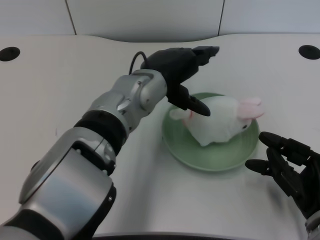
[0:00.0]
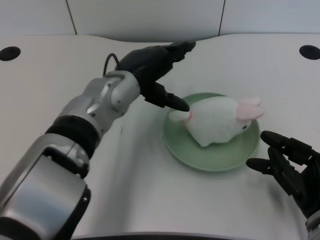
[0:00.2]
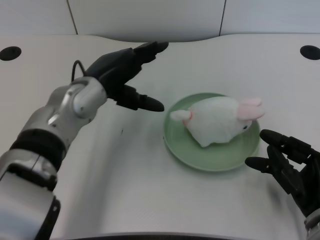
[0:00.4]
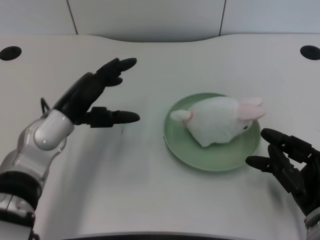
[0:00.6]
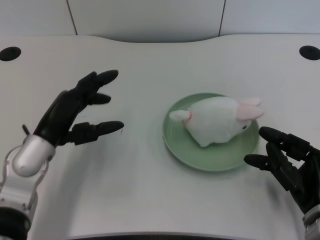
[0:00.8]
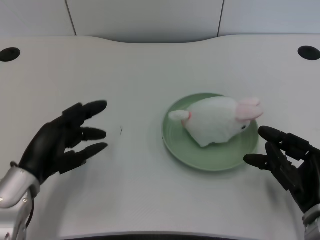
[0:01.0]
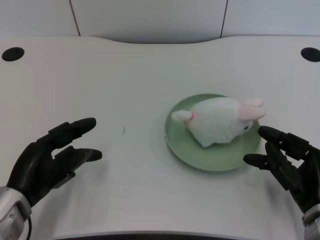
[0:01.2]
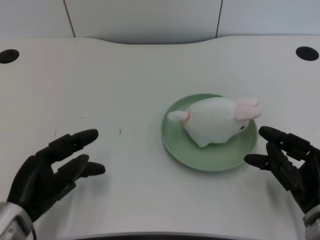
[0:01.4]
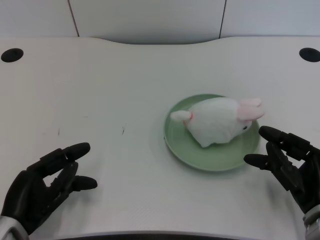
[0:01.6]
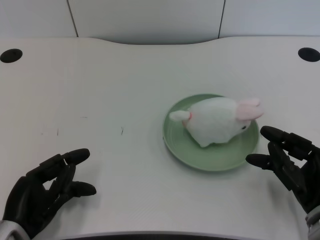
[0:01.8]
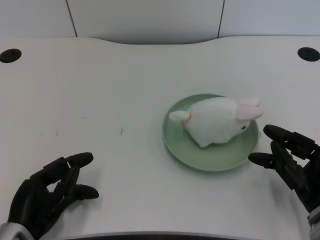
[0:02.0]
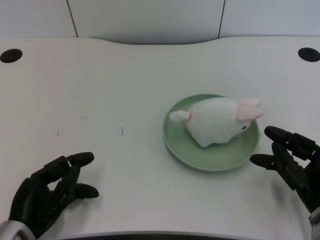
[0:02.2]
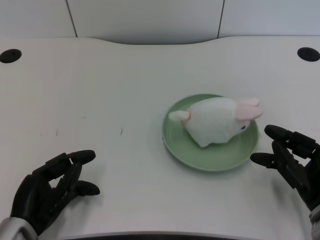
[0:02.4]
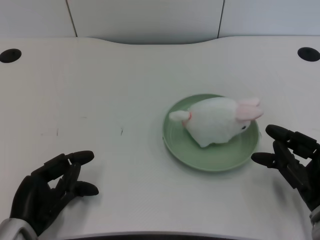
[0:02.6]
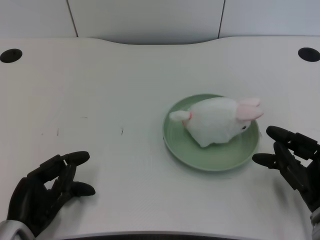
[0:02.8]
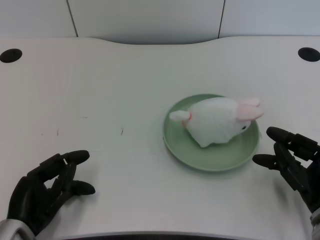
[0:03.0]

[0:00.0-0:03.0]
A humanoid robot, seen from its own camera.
Task of the whole recording: pick up the rabbit doll from the table and place it on the plate.
0:00.0 to 0:01.6: The left hand moves to the left, backward and downward, about 30 cm.
0:01.6 to 0:03.0: The hands stay close to where they were, moving slightly.

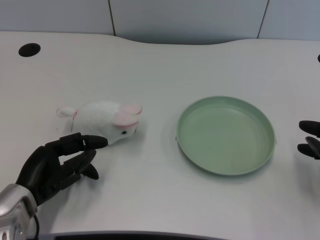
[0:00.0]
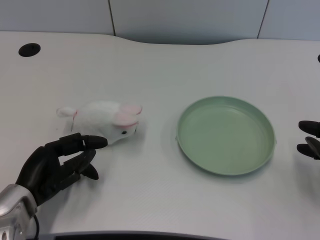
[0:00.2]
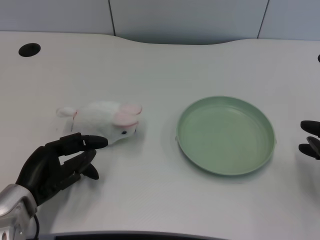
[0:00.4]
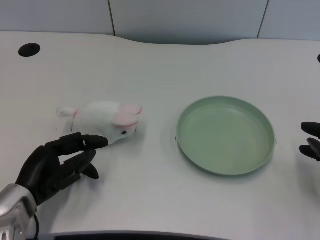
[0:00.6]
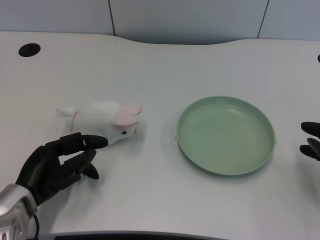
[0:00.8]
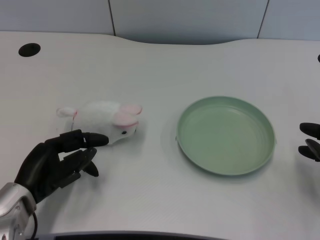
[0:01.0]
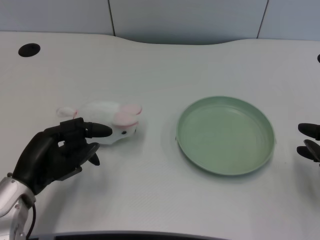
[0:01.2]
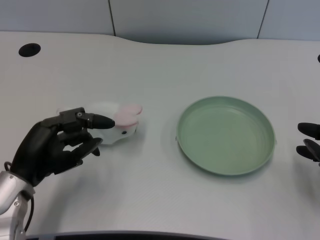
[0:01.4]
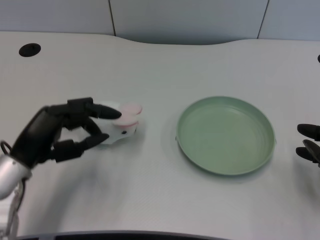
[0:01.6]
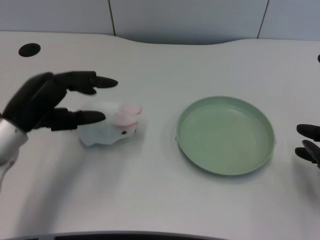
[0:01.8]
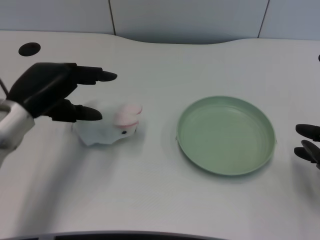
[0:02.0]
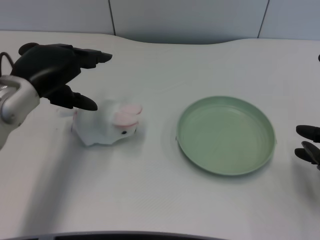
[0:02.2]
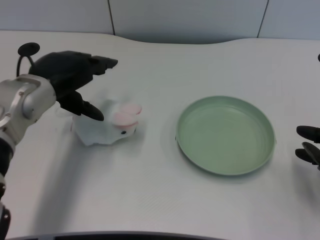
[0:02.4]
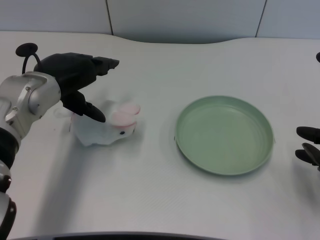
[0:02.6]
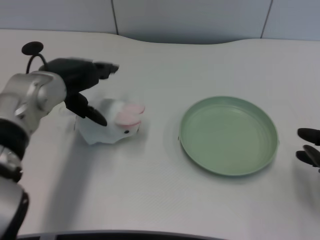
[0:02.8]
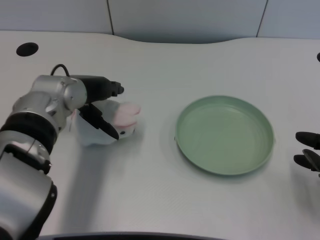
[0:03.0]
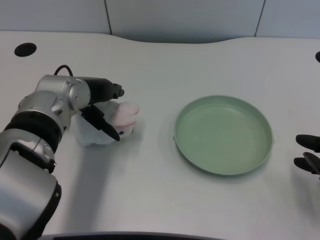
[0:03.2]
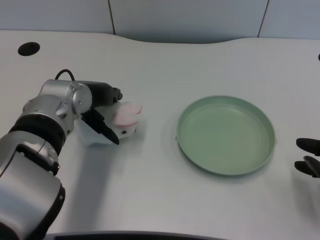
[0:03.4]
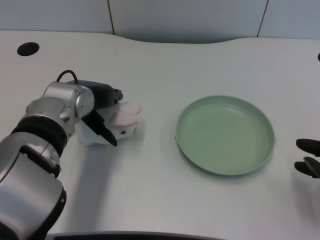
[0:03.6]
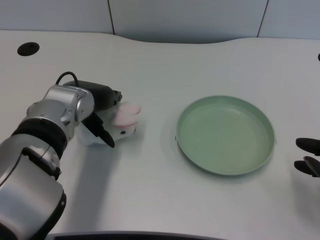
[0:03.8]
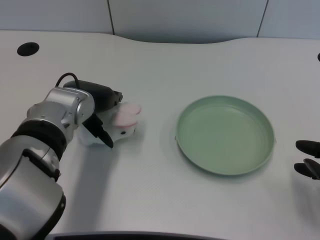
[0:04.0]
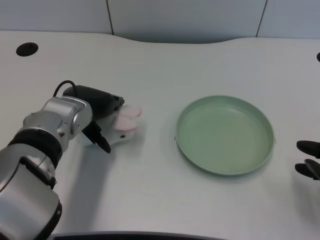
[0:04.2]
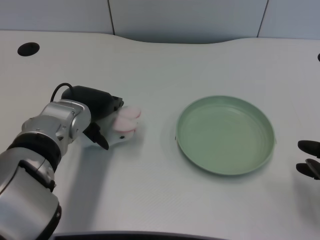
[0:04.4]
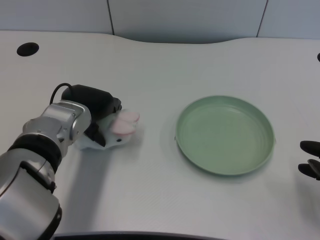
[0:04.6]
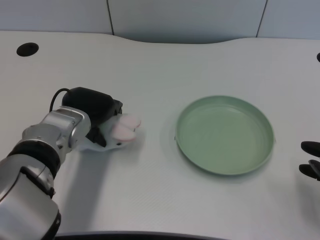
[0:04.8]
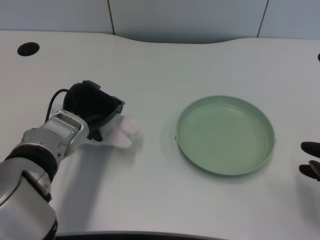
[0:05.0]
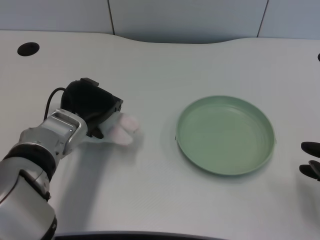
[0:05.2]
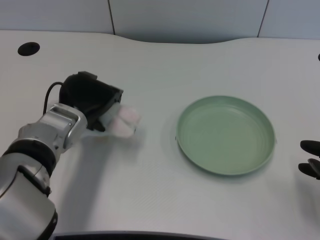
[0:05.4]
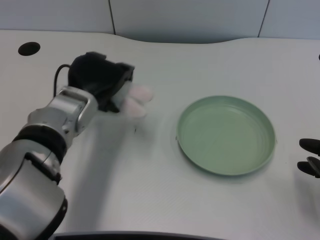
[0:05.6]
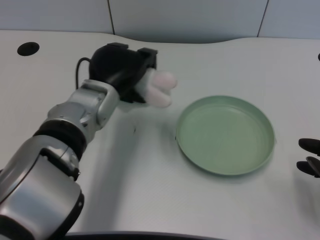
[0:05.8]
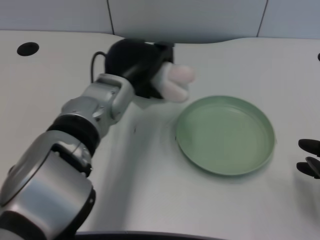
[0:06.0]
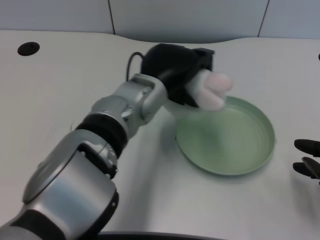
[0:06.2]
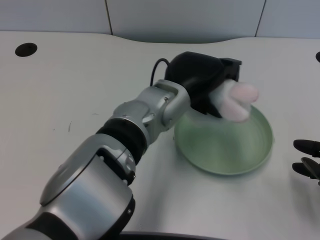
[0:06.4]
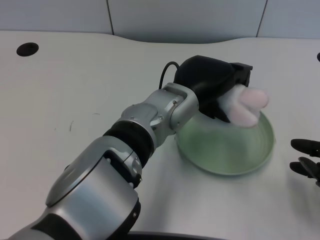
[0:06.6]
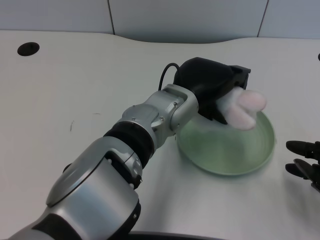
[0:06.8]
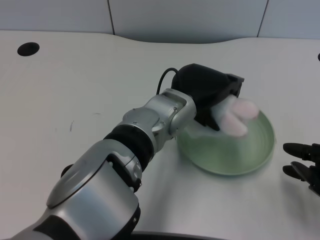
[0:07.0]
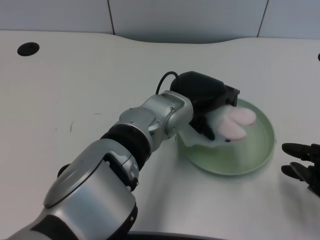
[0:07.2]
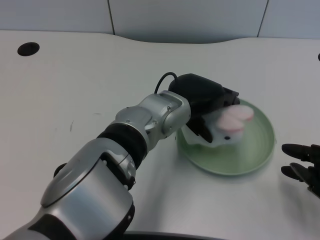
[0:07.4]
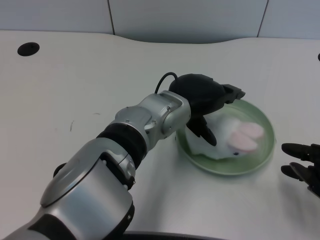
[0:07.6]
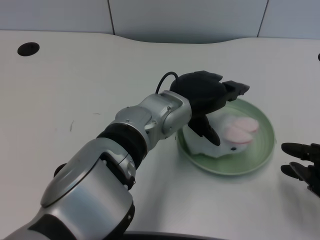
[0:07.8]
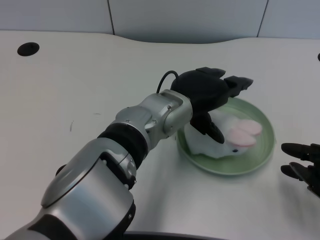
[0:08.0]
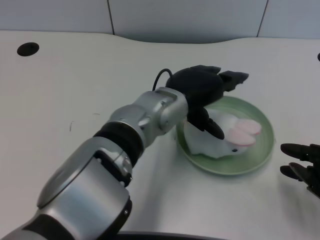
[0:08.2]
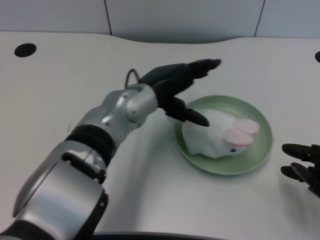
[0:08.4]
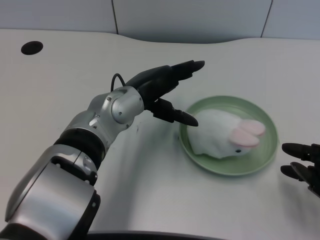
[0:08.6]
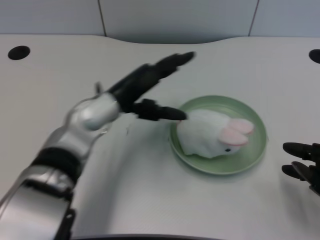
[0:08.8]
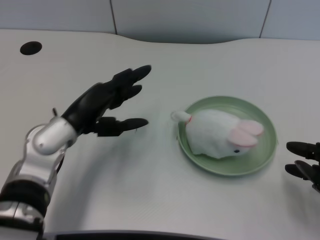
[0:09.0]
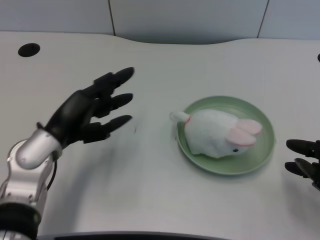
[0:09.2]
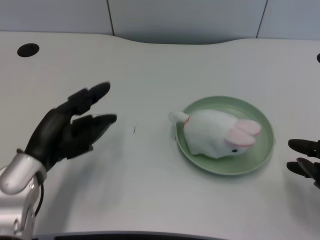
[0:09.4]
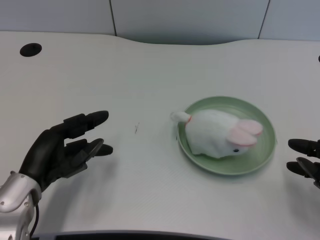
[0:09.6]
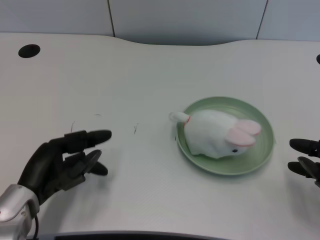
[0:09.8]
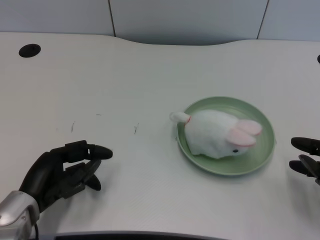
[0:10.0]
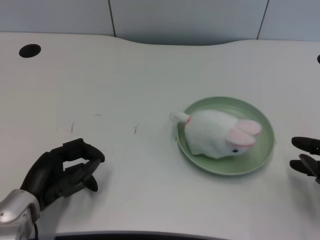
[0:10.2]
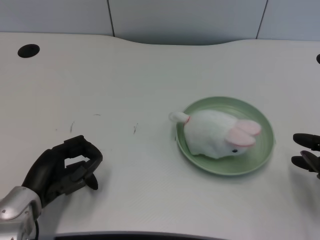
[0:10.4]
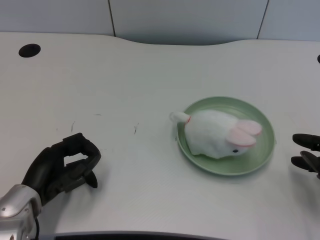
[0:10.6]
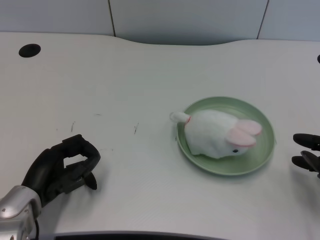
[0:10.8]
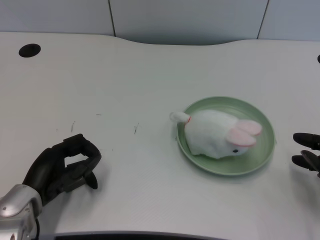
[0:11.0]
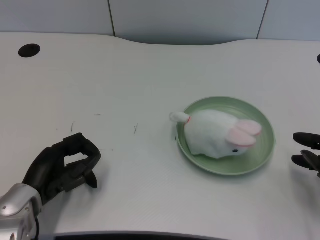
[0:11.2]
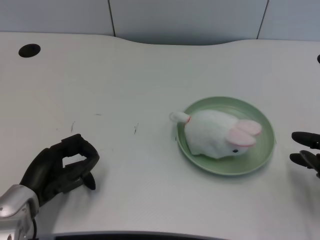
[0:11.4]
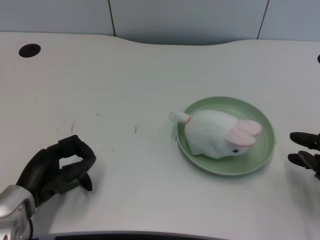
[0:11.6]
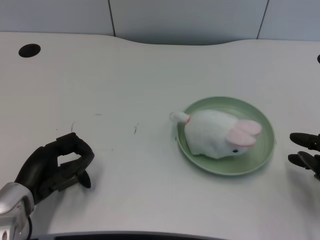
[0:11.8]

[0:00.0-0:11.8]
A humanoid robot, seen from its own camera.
Task of the whole recording: pick up the rabbit doll from the table and place it on the plate.
Step, 0:01.2 to 0:05.2: Grasp the rabbit doll with the left gripper.
Step, 0:05.4 to 0:07.6: Place the rabbit doll into the plate with the left gripper.
0:01.4 to 0:03.0: The left hand moves forward, upward and to the right, approximately 15 cm.
0:03.0 to 0:04.4: The hands make only small movements.
0:04.4 to 0:06.0: The left hand is displaced to the right by about 5 cm.
0:06.0 to 0:07.4: The left hand moves to the right, approximately 5 cm.
0:07.4 to 0:08.8: The left hand shifts about 10 cm to the left.
0:08.8 to 0:10.4: The left hand shifts approximately 15 cm to the left, downward and backward.
0:10.4 to 0:11.8: The two hands keep their place.

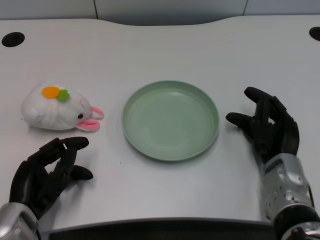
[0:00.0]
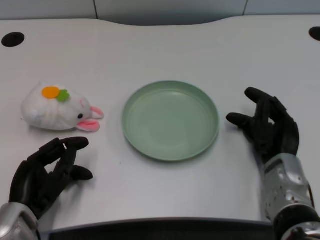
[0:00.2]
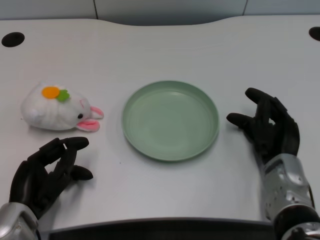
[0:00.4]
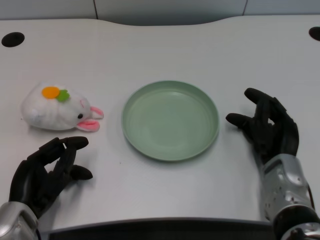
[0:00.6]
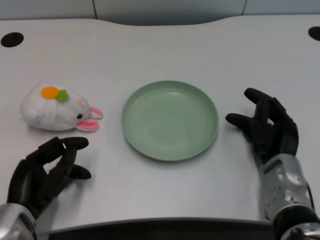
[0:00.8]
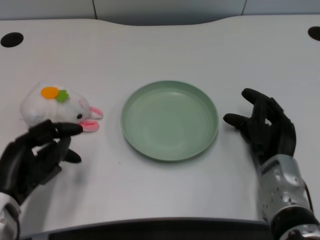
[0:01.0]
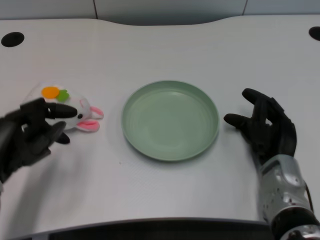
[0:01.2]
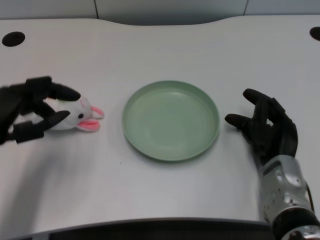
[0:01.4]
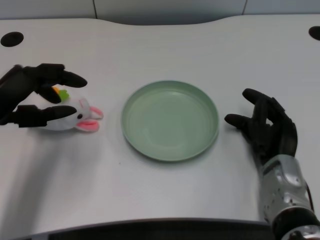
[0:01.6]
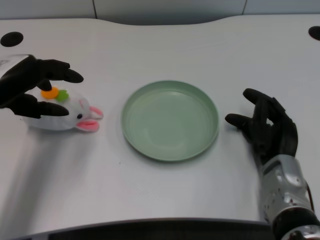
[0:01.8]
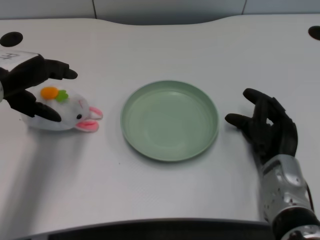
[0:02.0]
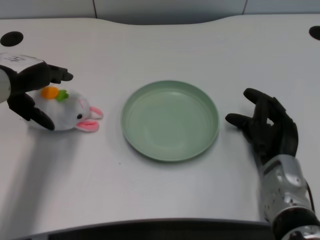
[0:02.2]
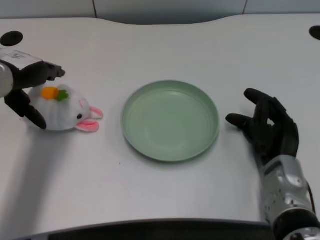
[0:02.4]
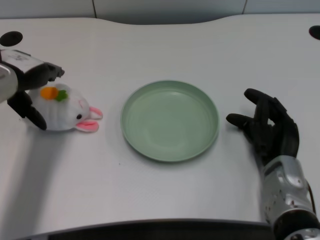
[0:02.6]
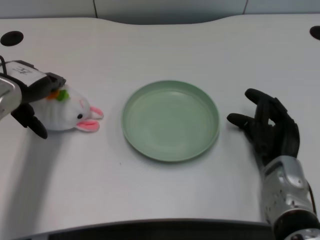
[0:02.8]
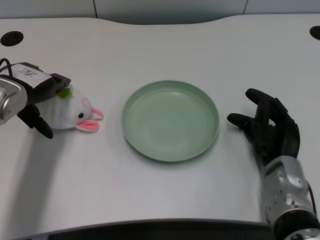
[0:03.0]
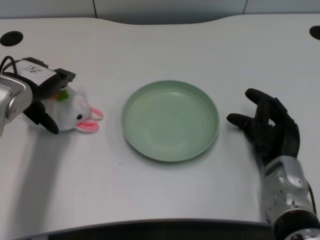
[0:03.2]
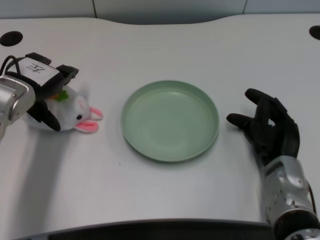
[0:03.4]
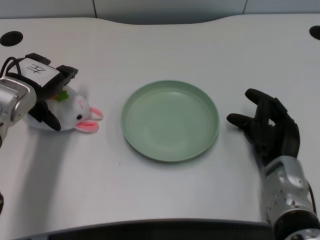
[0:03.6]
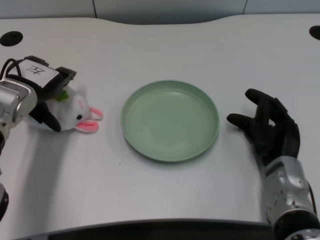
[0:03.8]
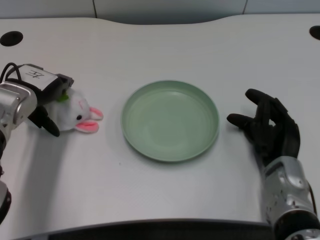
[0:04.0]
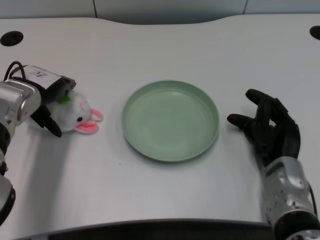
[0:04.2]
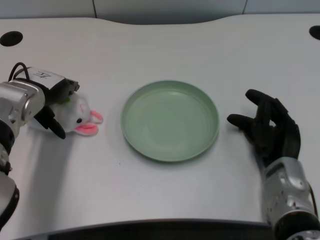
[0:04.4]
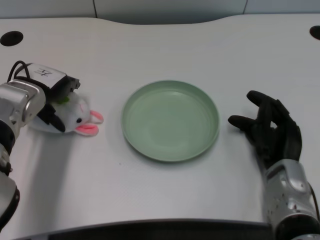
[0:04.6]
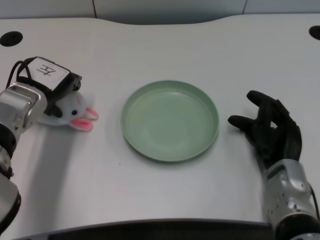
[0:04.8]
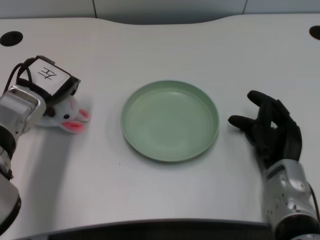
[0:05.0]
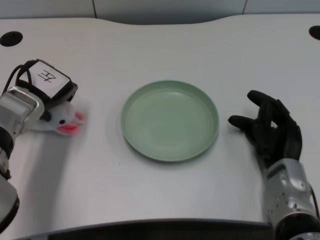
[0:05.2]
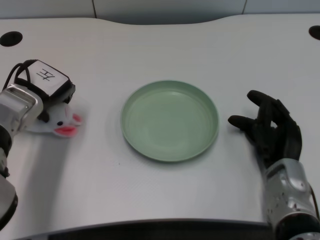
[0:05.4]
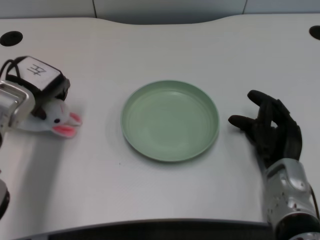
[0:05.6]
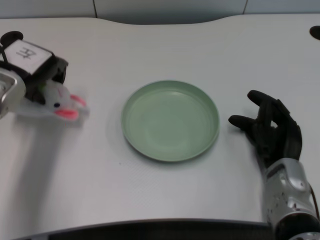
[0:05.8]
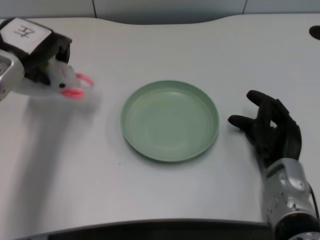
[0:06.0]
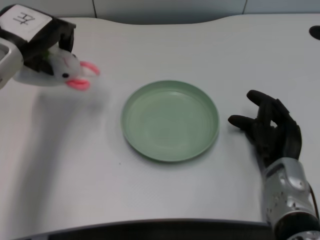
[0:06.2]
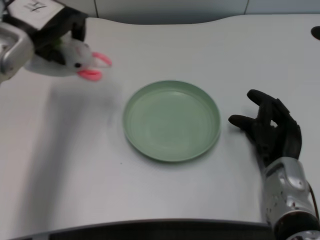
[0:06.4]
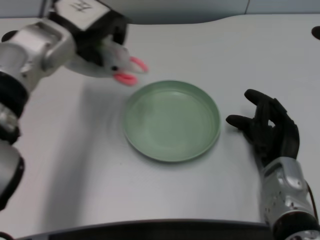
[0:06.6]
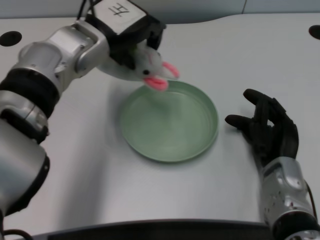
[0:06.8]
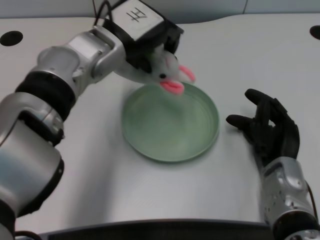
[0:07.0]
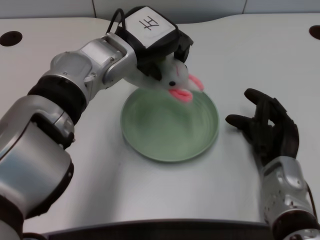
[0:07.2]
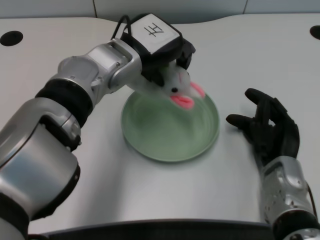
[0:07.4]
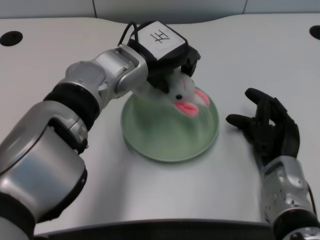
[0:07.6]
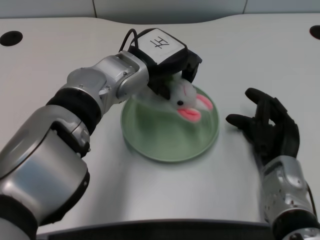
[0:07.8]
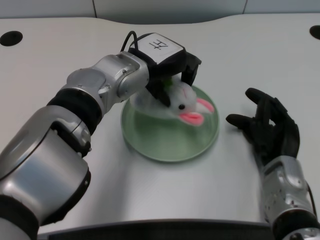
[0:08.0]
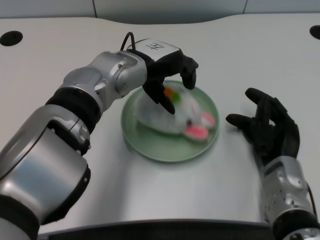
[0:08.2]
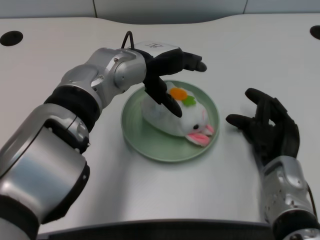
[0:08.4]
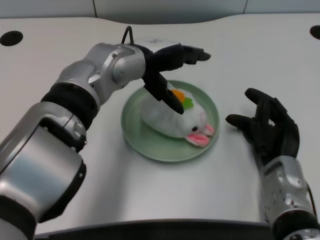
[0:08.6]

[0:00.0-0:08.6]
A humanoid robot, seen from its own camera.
Task of the whole recording: pick up the rabbit doll from the table and place it on the plate.
Step, 0:01.0 to 0:05.6: Grasp the rabbit doll with the left gripper.
Step, 0:05.8 to 0:08.4: Place the rabbit doll into the plate with the left gripper.
0:01.4 to 0:02.8: The left hand heads forward, covering approximately 10 cm.
0:02.8 to 0:04.4: There are only small adjustments of the hands.
0:05.8 to 0:07.2: The left hand goes approximately 15 cm to the right.
